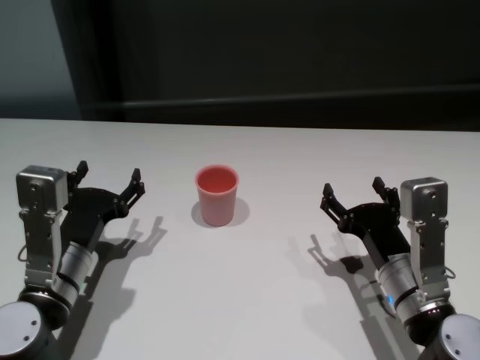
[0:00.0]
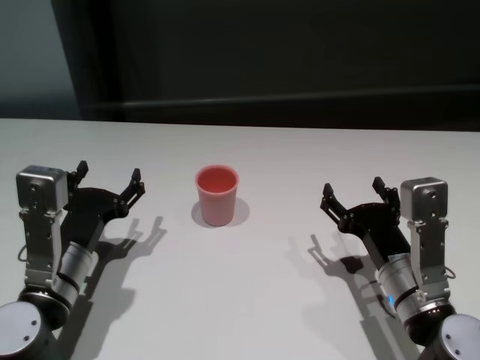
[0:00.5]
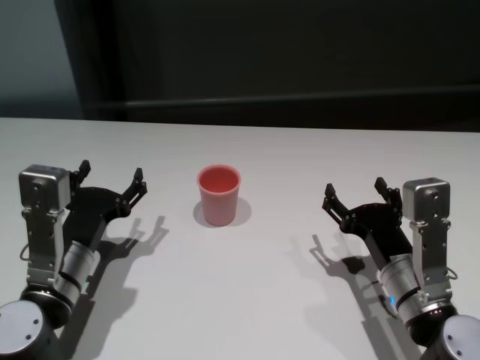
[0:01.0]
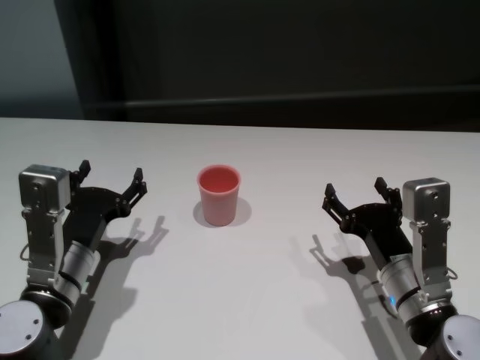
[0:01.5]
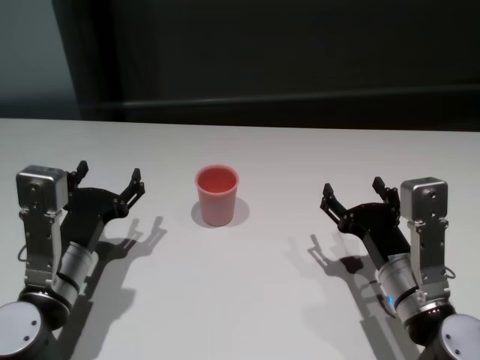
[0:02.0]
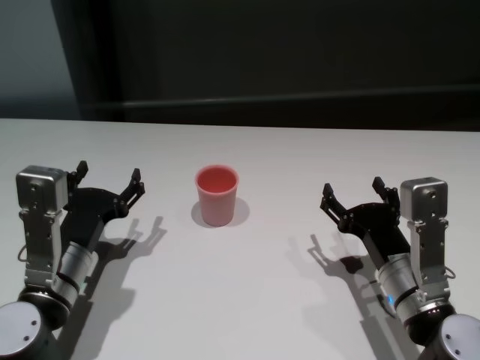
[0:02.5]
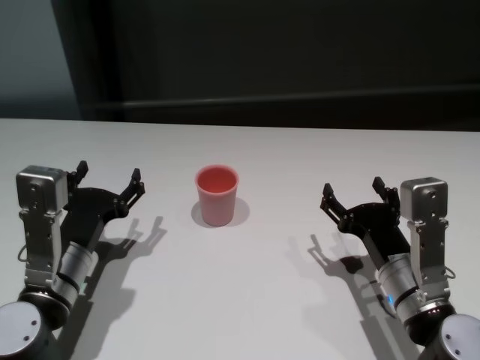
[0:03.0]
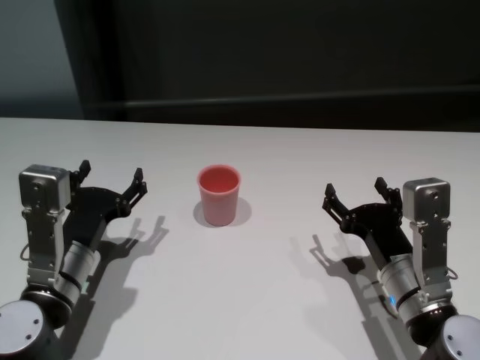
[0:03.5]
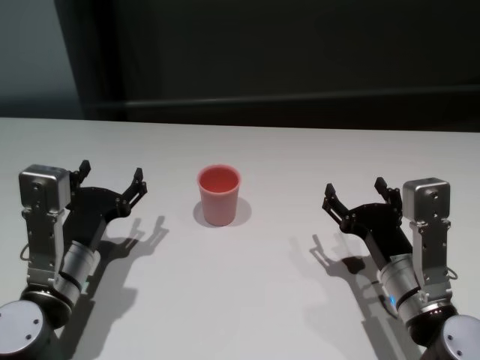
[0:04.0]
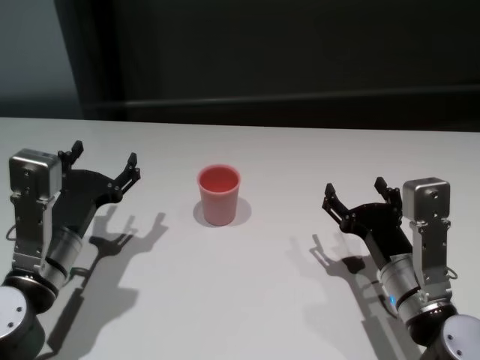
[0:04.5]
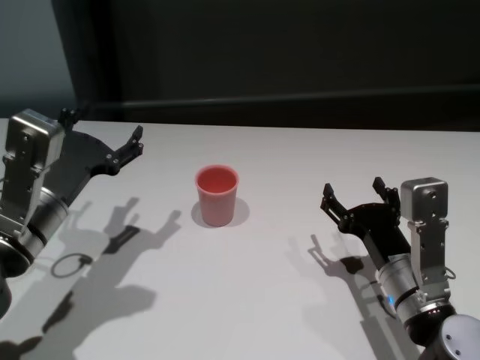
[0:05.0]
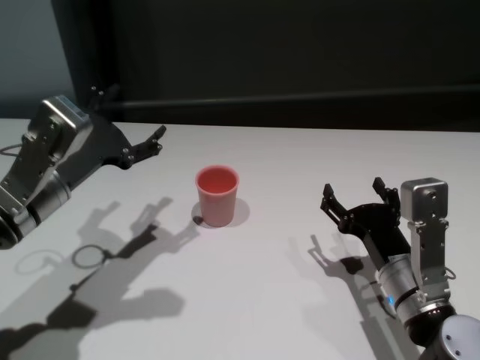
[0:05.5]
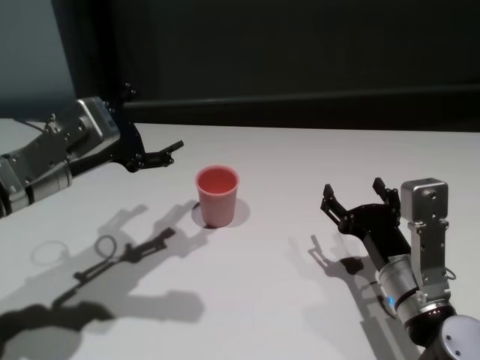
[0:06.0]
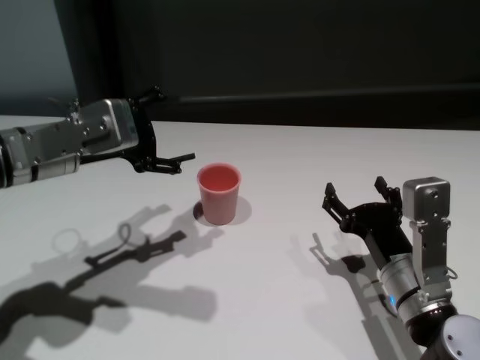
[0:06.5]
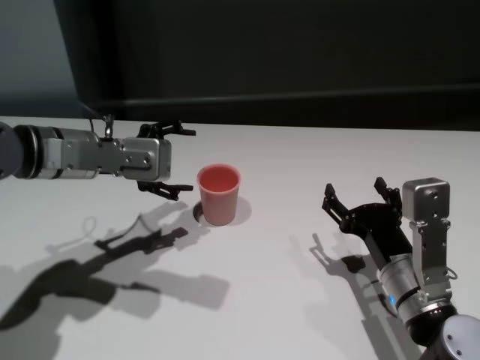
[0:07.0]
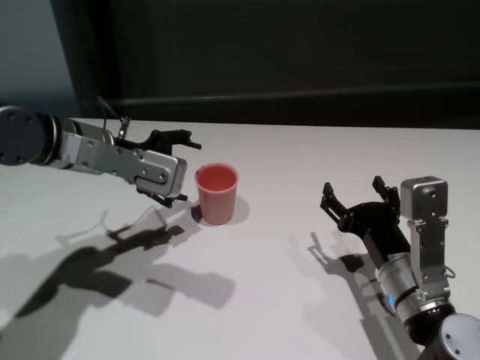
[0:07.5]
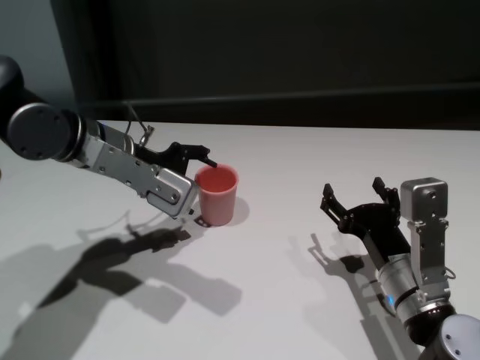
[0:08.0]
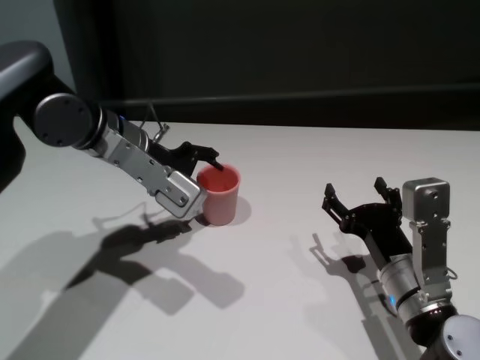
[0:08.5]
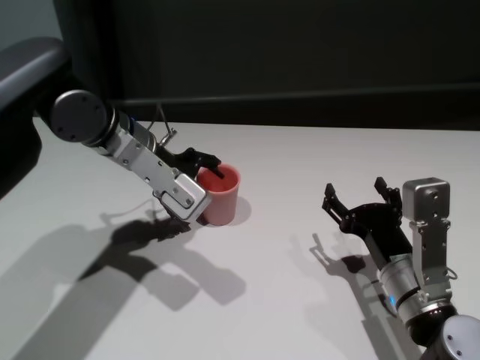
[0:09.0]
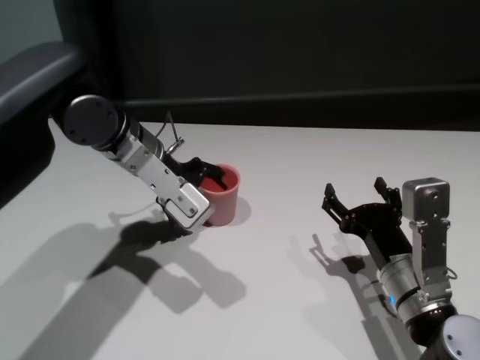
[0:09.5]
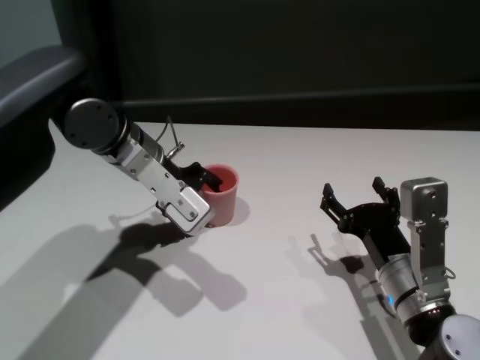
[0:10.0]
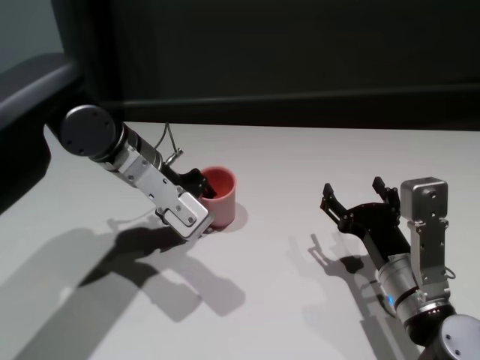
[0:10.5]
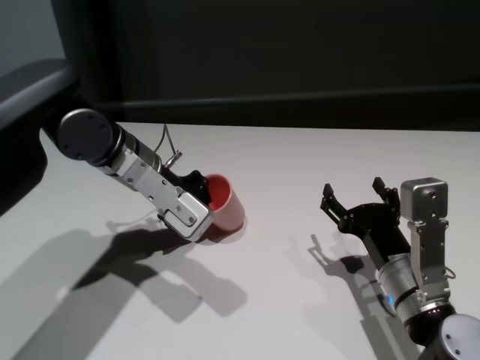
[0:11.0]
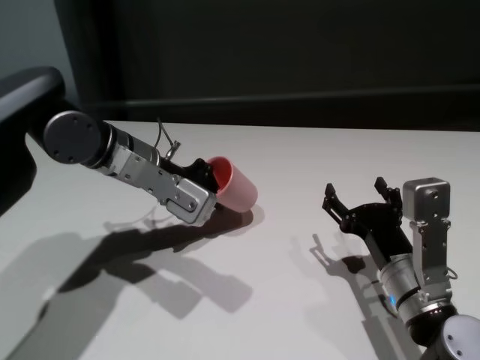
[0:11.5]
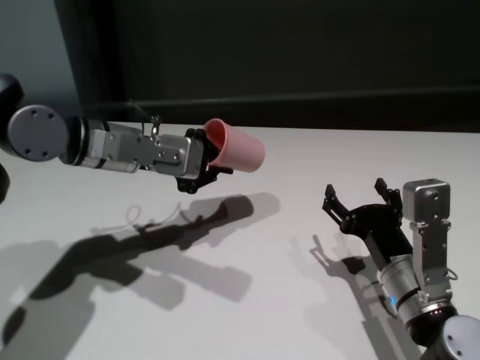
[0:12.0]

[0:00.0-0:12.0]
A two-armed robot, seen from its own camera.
Task of the whole recording: On the white table pick up the cup with one hand and transfer it to the other hand before turning it over.
Step, 0:00.0 to 0:10.5: Grasp the cup with left gripper.

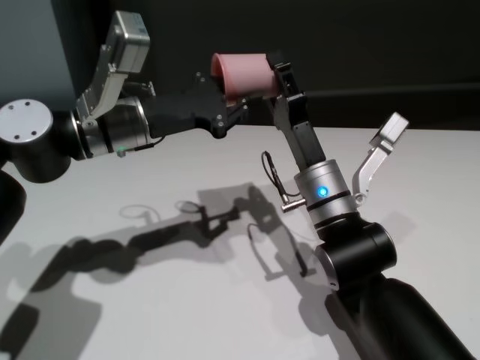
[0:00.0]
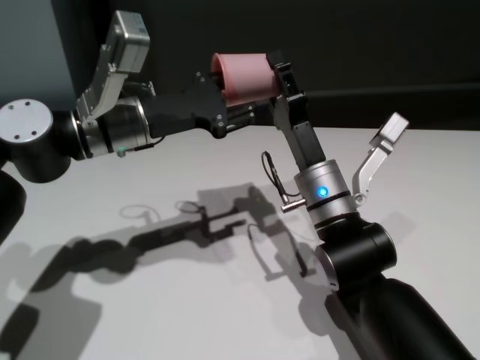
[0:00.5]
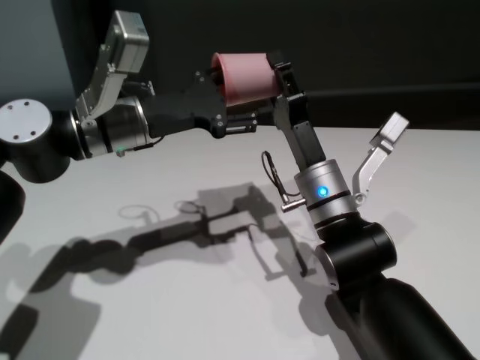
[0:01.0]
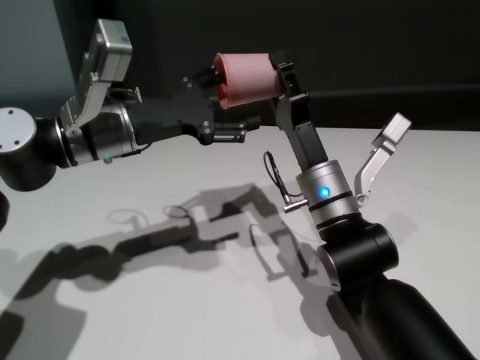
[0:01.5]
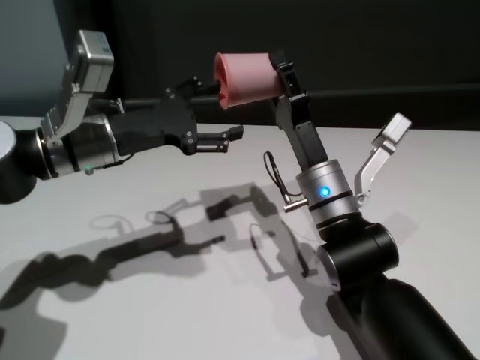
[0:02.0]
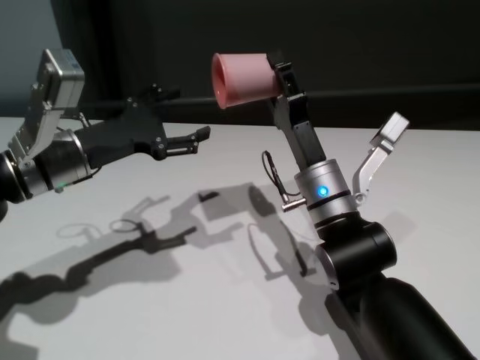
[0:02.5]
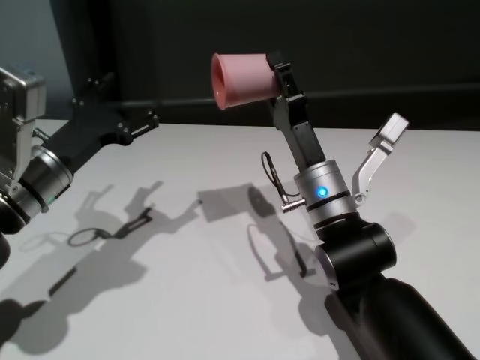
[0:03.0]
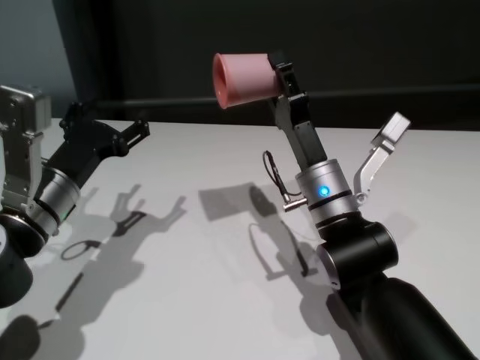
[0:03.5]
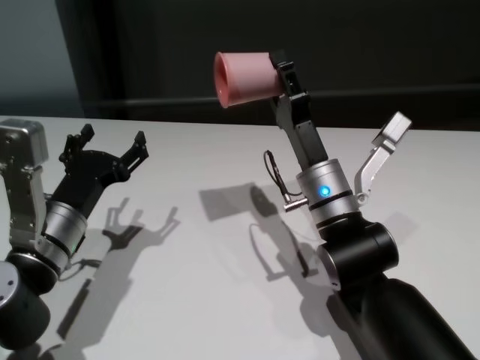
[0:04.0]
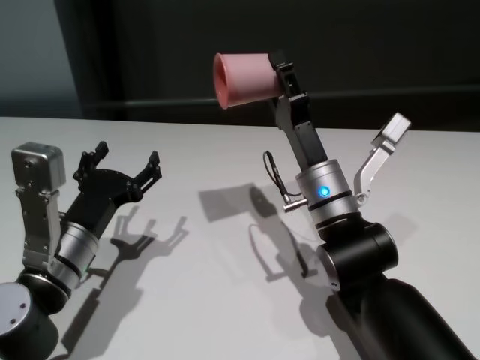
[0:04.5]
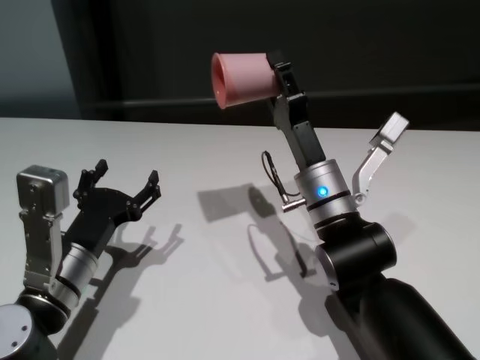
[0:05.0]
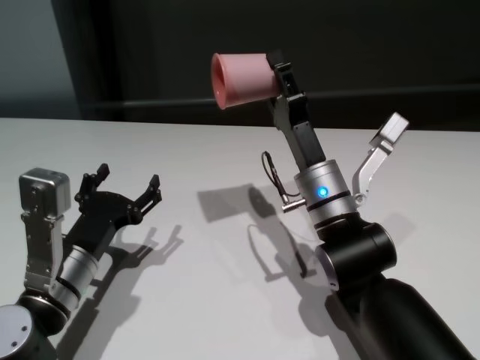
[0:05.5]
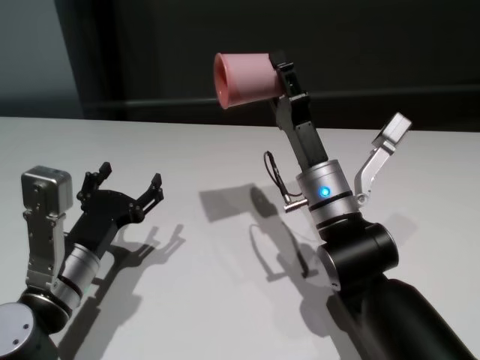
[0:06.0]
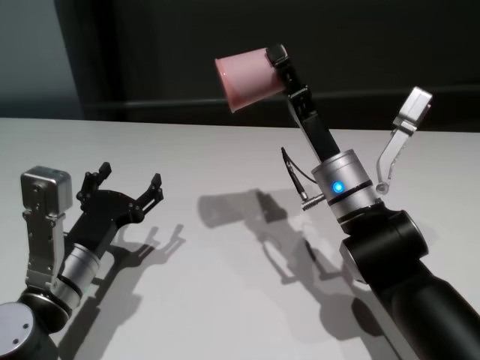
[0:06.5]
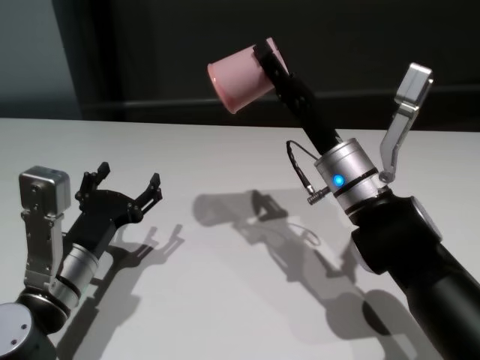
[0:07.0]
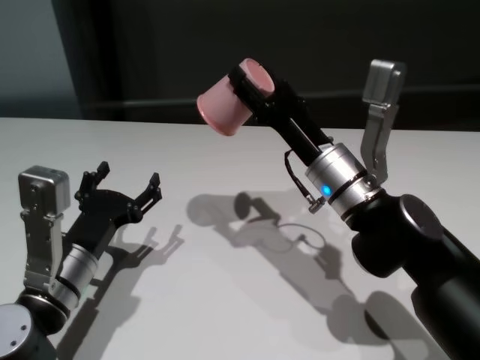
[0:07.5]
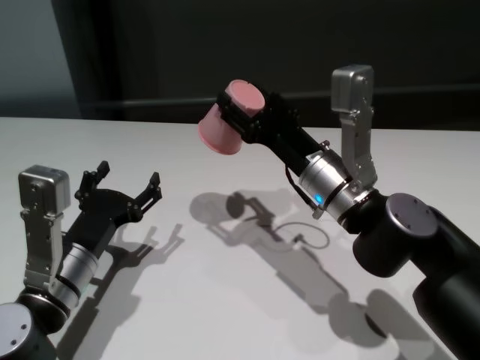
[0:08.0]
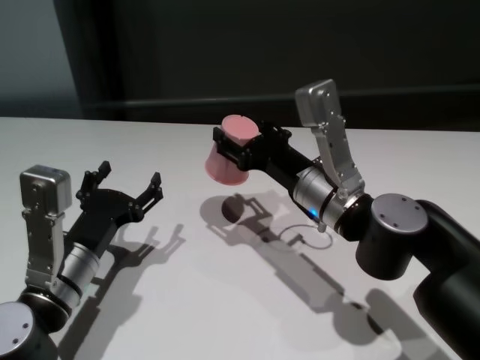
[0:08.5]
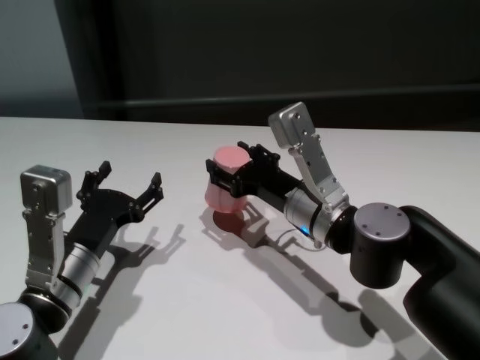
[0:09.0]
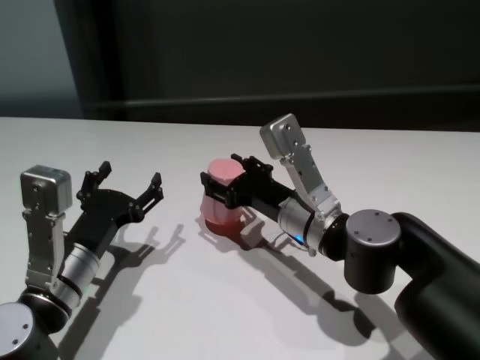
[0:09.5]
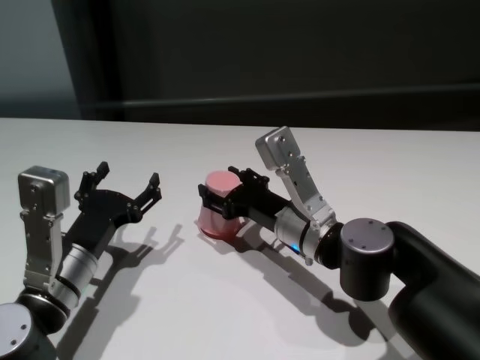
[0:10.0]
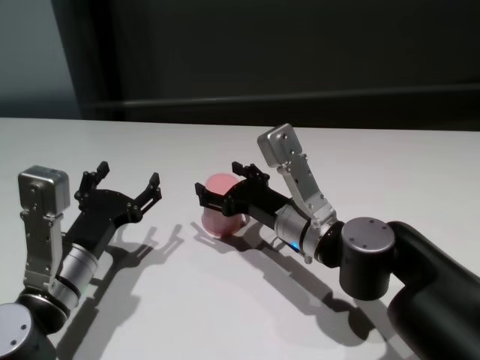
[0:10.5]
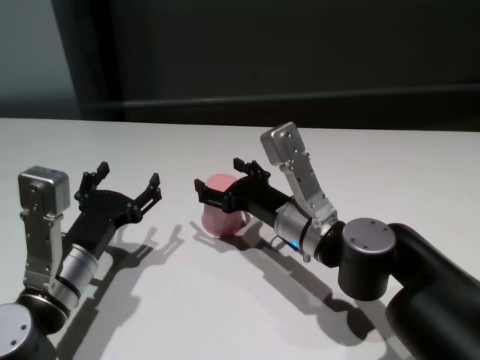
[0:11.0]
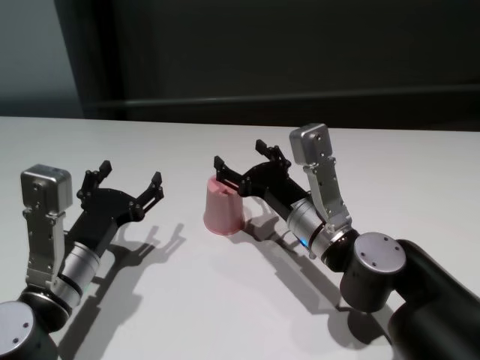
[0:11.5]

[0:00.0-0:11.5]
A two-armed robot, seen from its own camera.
Task of the whole recording: On the white table pick up the cup with one hand and transfer it to the other hand before turning it over.
Step, 0:02.0 to 0:11.0: Place the cup on the table with right gripper.
